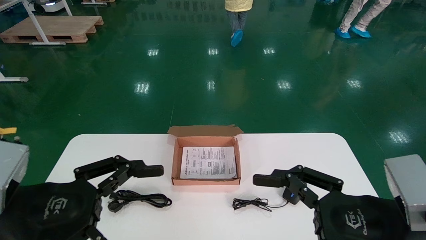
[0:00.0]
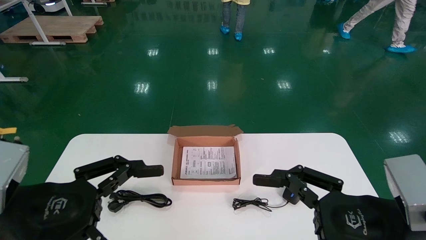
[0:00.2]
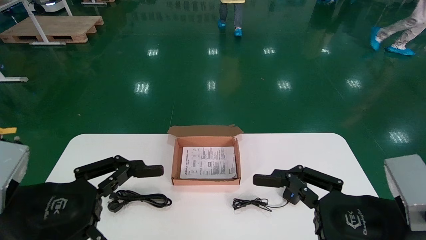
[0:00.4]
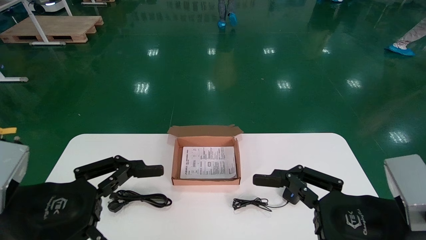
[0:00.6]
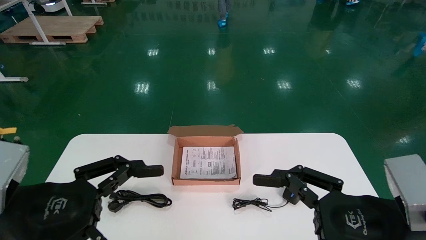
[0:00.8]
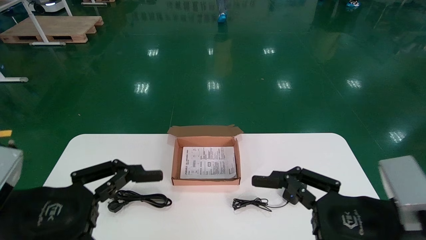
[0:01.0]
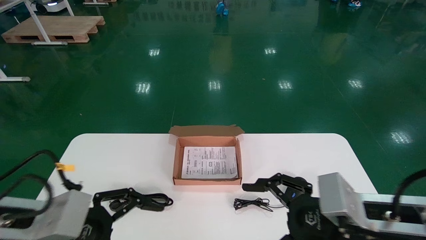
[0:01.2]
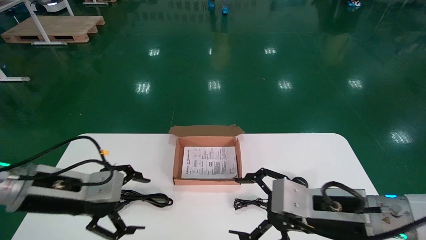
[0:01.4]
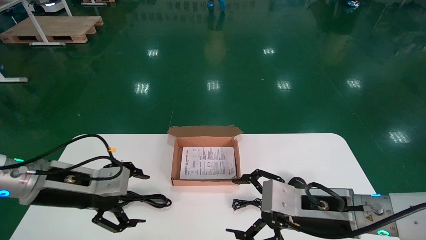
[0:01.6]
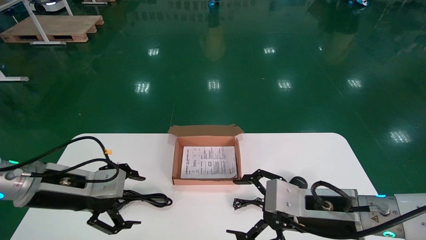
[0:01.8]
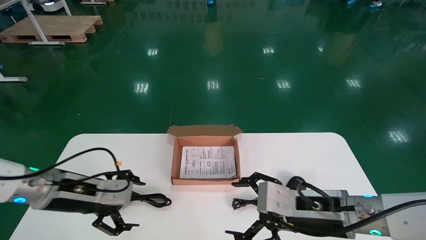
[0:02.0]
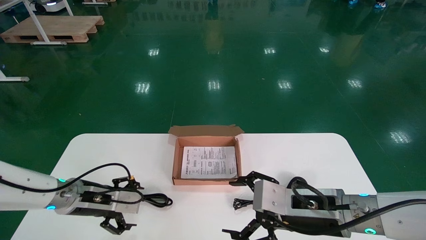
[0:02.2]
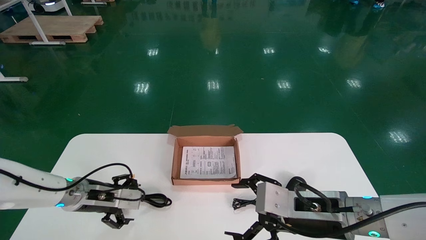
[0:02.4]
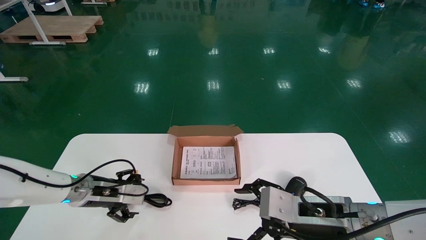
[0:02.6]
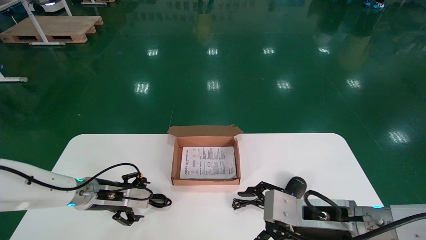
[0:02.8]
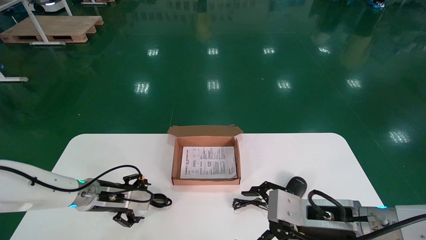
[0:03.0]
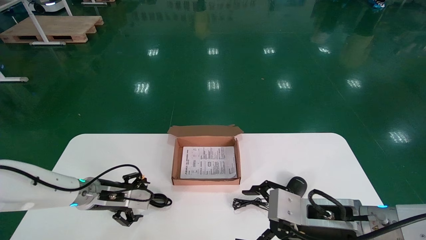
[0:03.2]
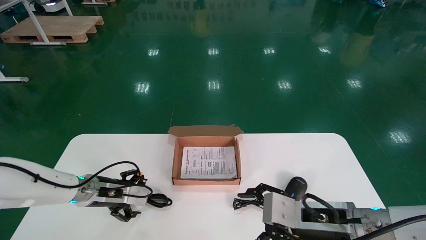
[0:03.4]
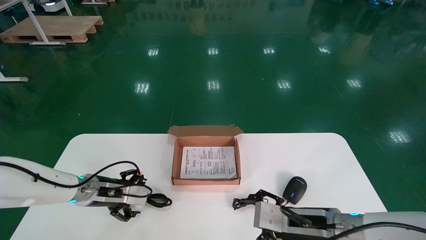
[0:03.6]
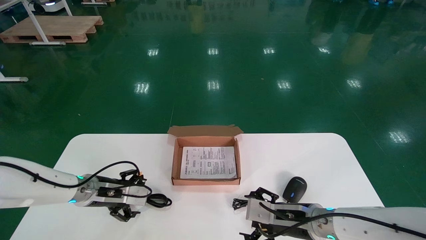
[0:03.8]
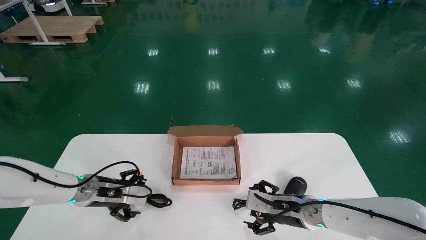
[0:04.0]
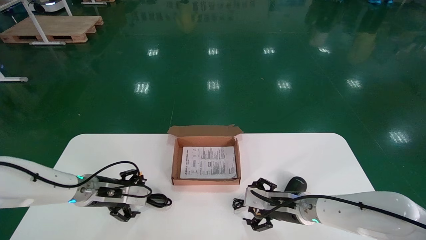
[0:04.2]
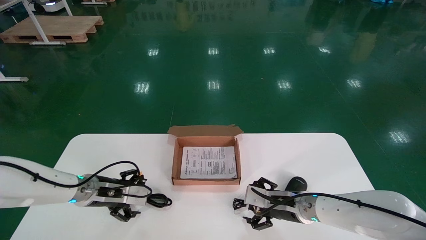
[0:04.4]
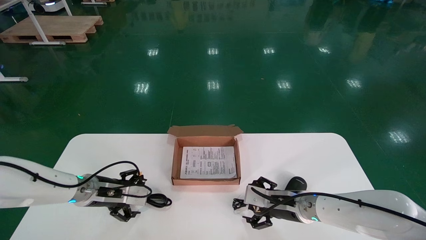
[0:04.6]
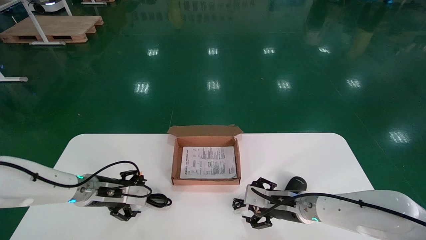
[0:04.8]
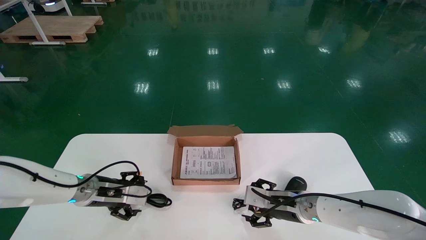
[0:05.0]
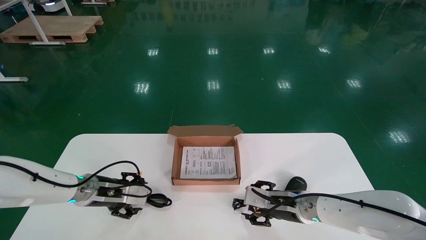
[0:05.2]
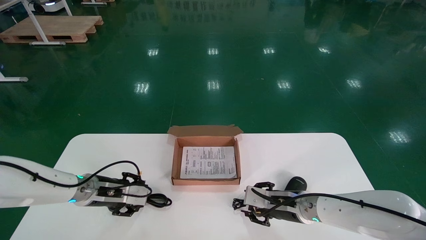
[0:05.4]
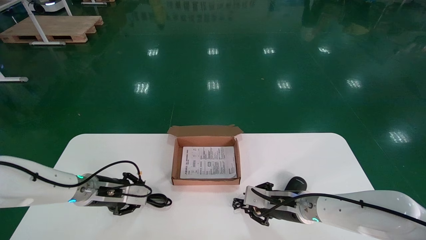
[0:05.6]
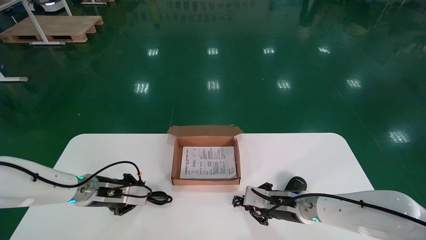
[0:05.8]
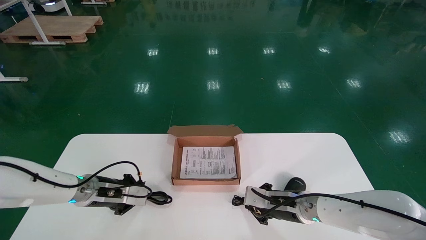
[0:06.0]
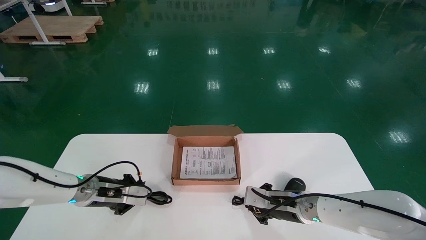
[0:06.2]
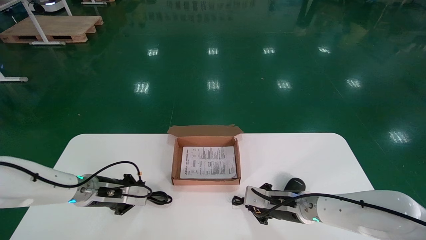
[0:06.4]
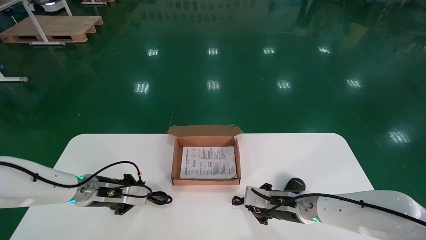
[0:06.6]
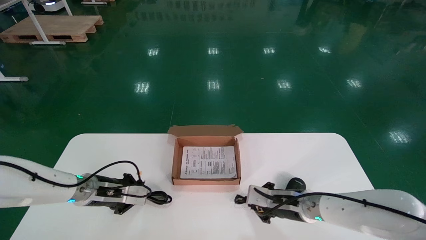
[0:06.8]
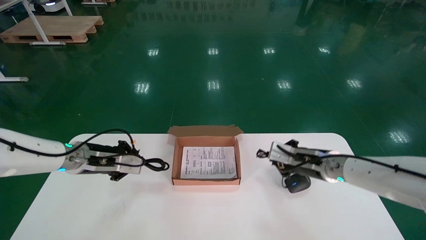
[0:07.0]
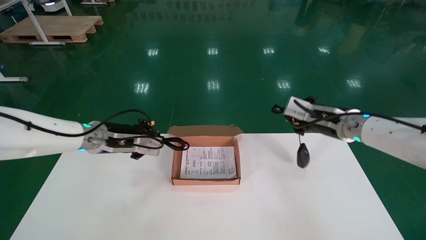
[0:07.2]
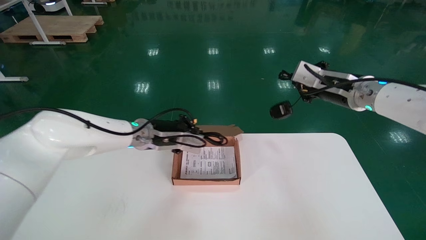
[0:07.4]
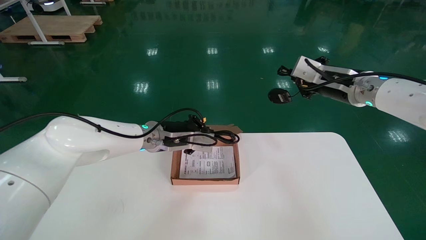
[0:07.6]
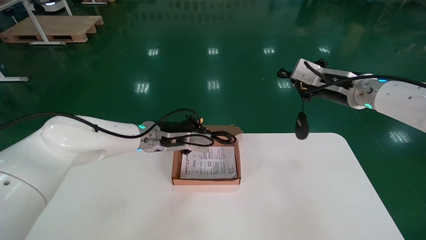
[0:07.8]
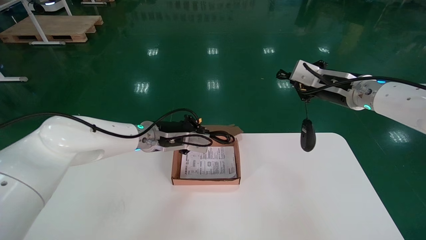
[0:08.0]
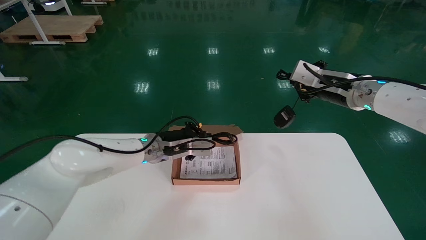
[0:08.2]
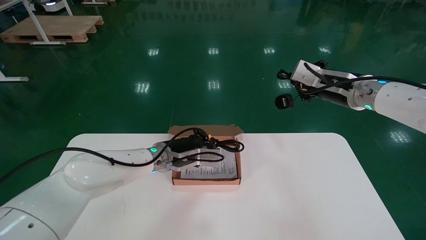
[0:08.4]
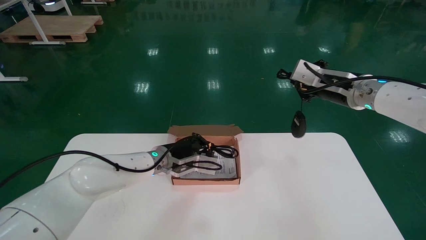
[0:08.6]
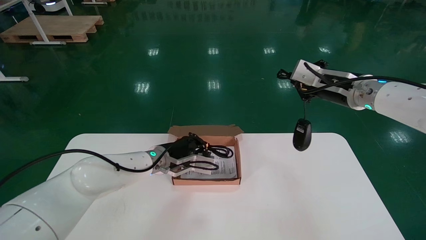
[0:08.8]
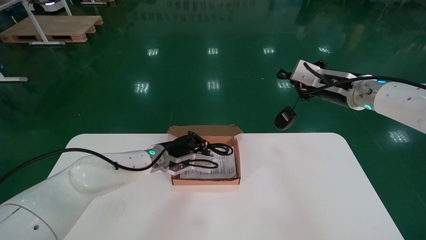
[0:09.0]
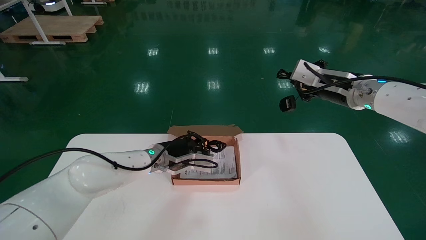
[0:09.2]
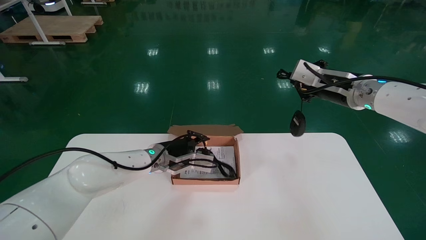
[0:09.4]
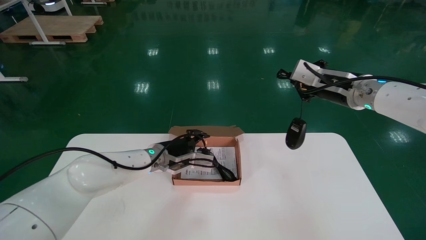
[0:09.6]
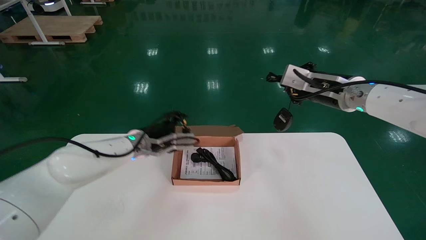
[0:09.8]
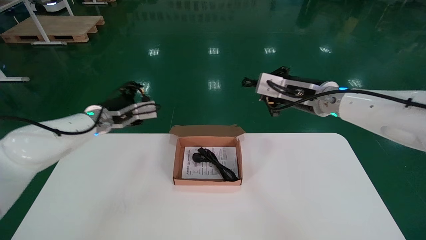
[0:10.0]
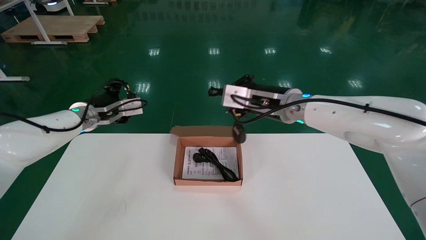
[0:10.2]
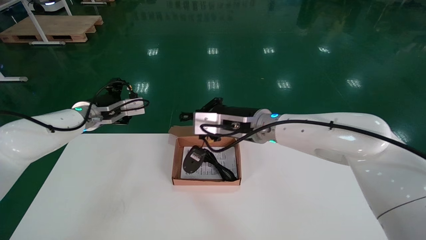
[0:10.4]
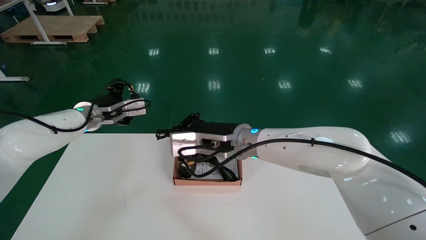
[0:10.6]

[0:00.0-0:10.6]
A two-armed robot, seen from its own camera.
Step, 0:01.2 to 0:07.0: Simultaneously pick up the mouse and power cord from the accessory packaging area.
0:00.0 to 0:01.6: The grippers both shift forward by some 10 cm.
0:01.6 to 0:03.0: The left gripper is displaced forward and downward by approximately 15 cm.
0:03.0 to 0:04.6: The right gripper shifts roughly 15 cm forward and downward.
0:04.6 to 0:06.0: The right gripper closes its fingers. Meanwhile the left gripper closes.
0:06.0 to 0:07.6: The right gripper goes some 25 cm upward. Meanwhile the left gripper moves to the right and upward, about 20 cm.
0:07.6 to 0:09.0: The left gripper goes roughly 5 cm downward.
0:09.0 to 0:10.6: The right gripper goes roughly 25 cm to the left and downward; the left gripper shifts roughly 20 cm to the left and upward, and opens its fingers.

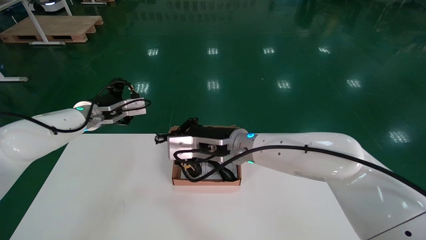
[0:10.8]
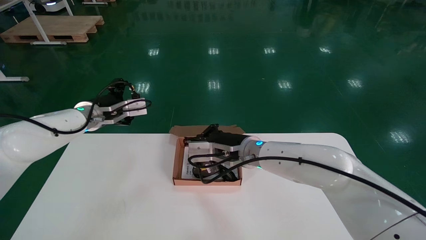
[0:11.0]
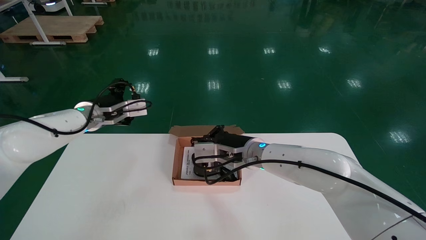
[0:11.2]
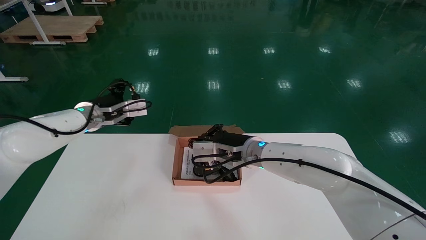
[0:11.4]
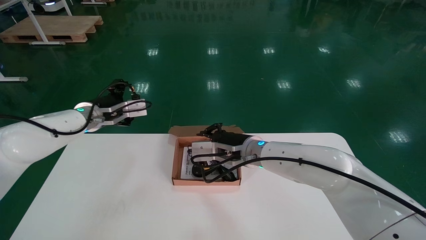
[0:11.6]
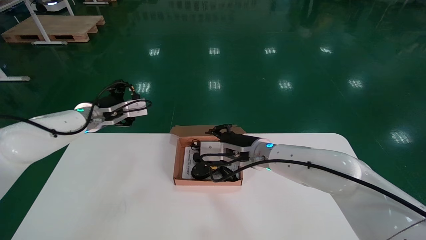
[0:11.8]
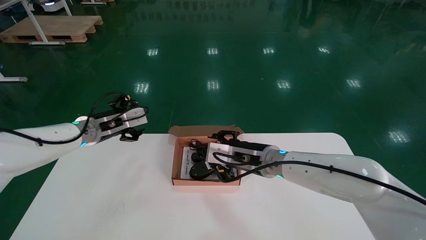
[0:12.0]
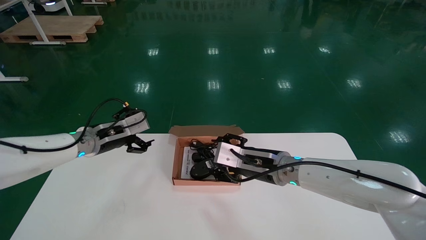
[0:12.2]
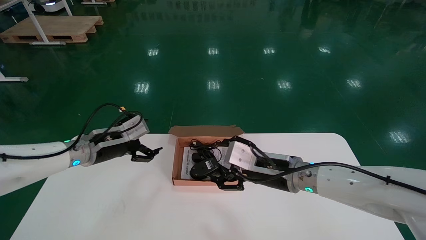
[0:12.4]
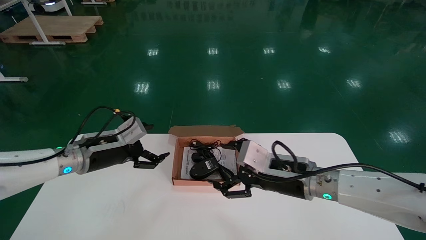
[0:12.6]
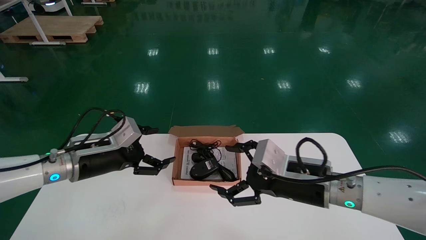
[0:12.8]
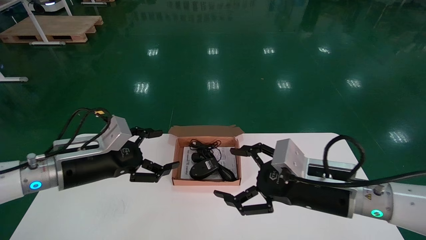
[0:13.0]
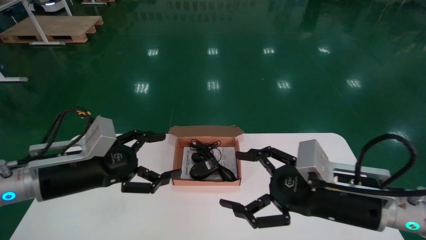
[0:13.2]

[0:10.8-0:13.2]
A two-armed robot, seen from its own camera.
0:10.8 to 0:12.0: The right gripper heads to the right, covering some 5 cm, and opens.
0:12.0 to 0:13.2: The right gripper moves backward and to the right, roughly 20 cm, and opens; the left gripper heads backward, covering approximately 15 cm.
